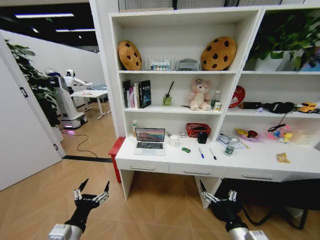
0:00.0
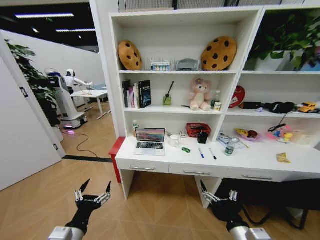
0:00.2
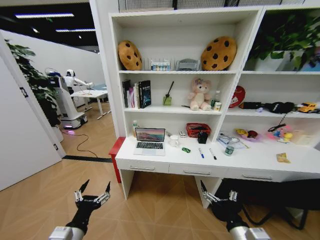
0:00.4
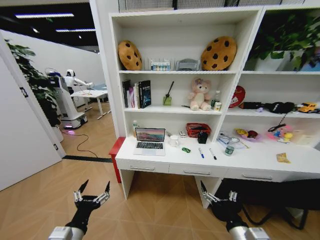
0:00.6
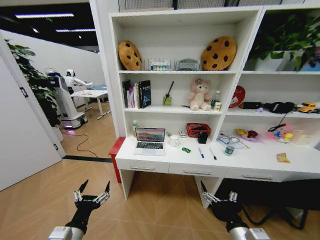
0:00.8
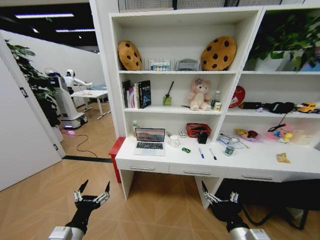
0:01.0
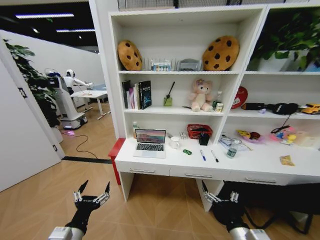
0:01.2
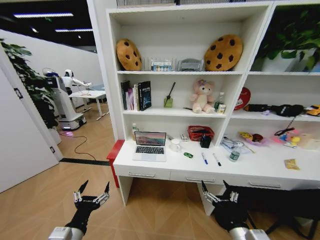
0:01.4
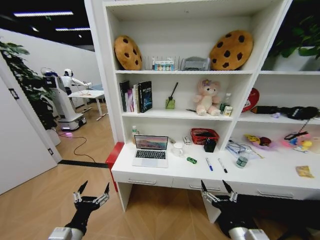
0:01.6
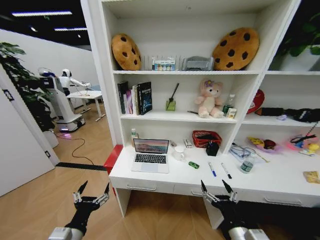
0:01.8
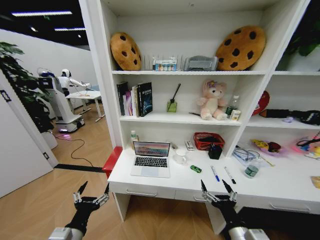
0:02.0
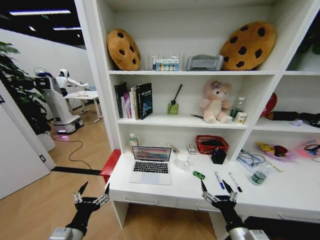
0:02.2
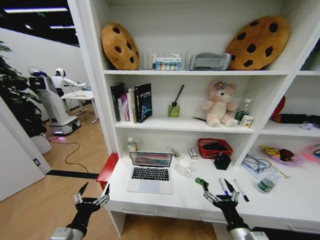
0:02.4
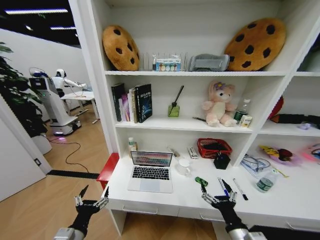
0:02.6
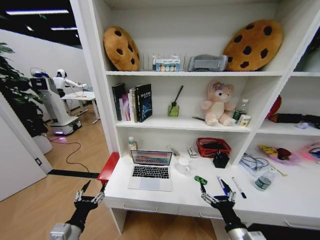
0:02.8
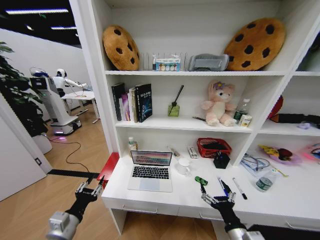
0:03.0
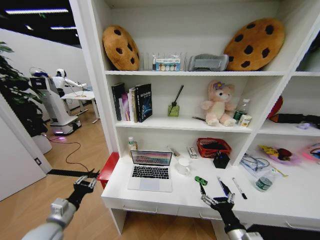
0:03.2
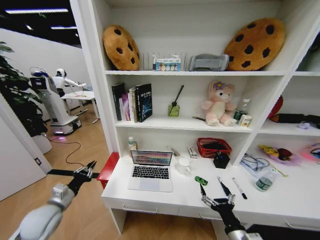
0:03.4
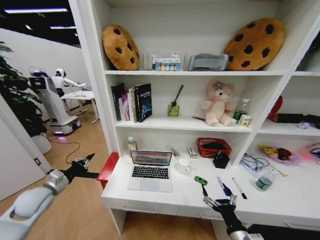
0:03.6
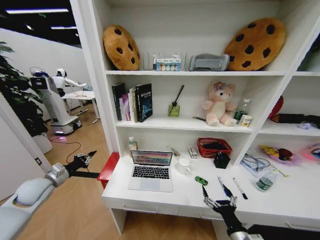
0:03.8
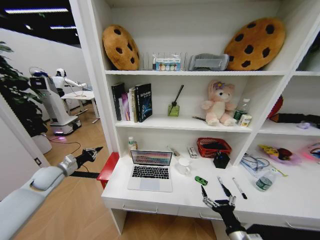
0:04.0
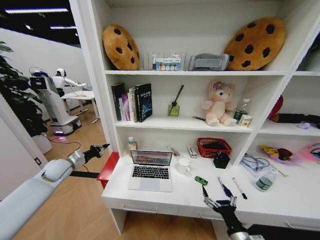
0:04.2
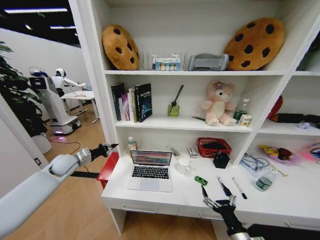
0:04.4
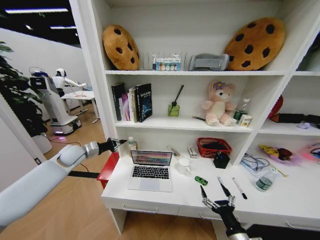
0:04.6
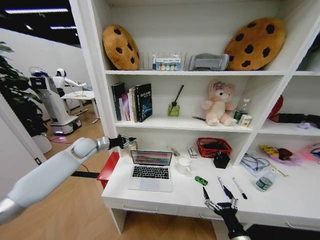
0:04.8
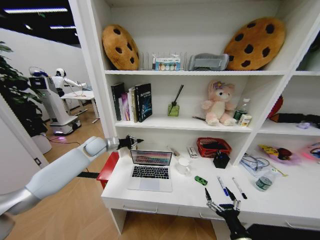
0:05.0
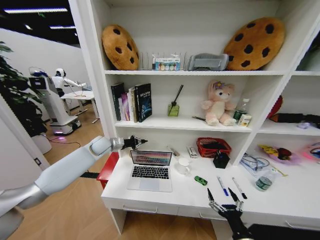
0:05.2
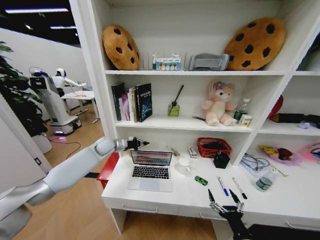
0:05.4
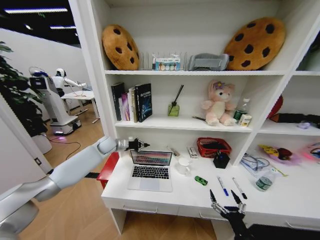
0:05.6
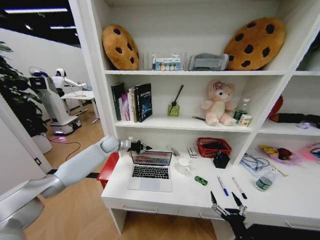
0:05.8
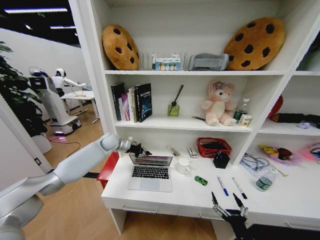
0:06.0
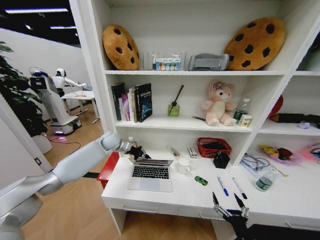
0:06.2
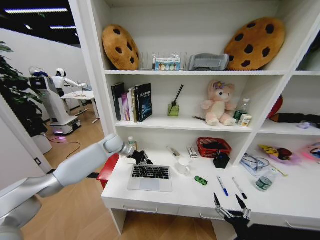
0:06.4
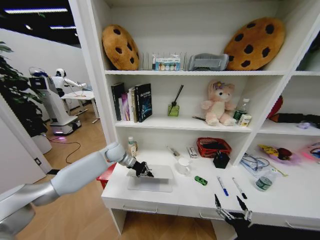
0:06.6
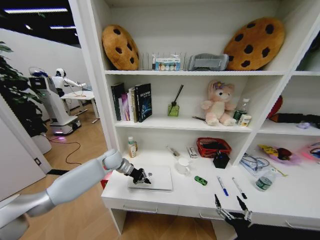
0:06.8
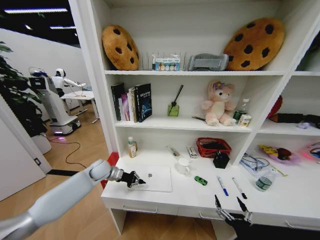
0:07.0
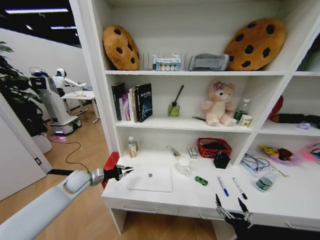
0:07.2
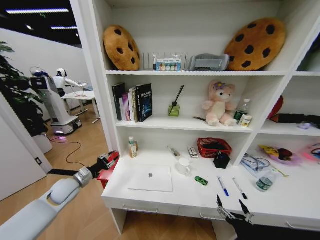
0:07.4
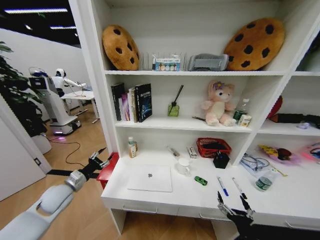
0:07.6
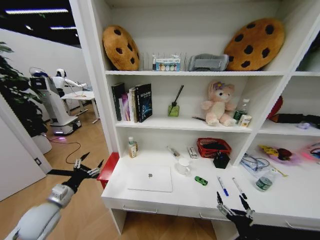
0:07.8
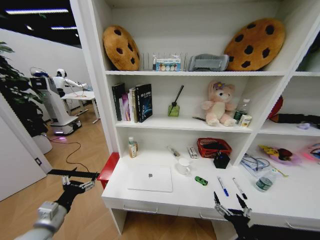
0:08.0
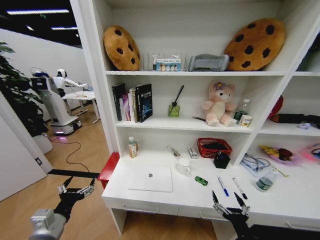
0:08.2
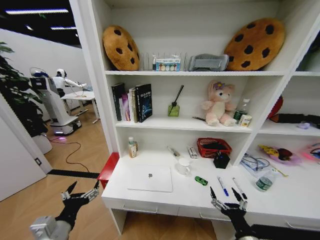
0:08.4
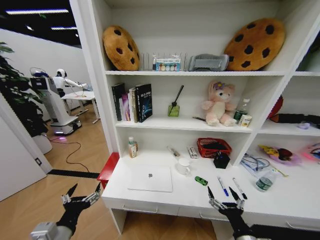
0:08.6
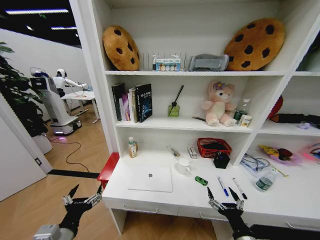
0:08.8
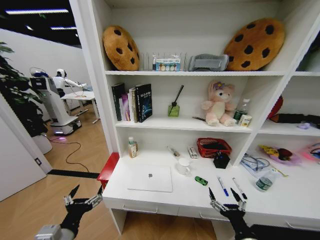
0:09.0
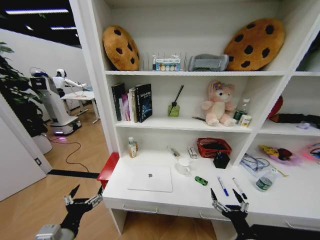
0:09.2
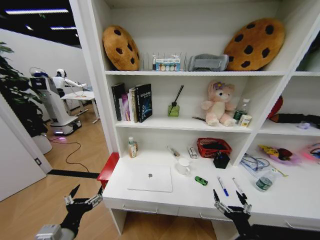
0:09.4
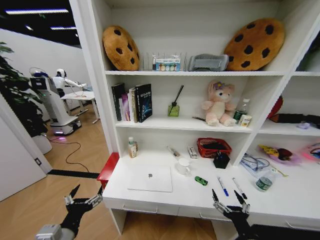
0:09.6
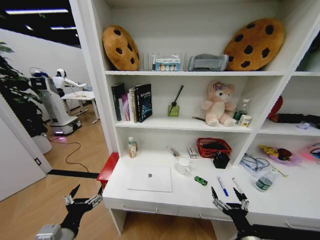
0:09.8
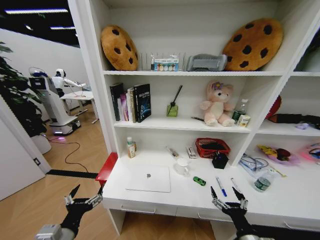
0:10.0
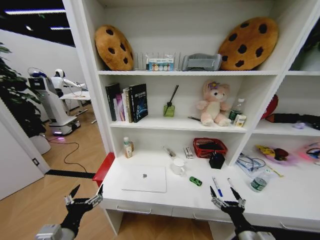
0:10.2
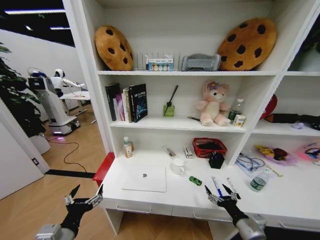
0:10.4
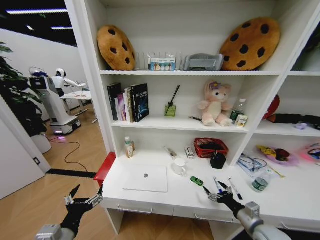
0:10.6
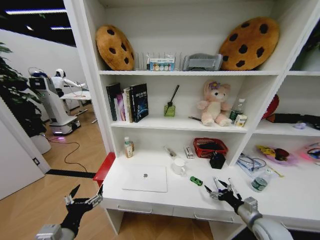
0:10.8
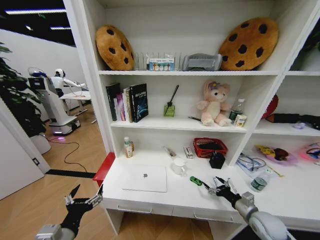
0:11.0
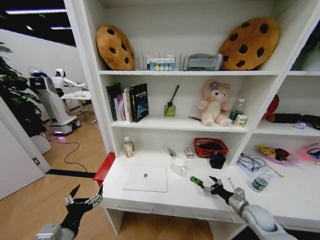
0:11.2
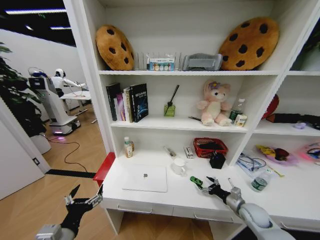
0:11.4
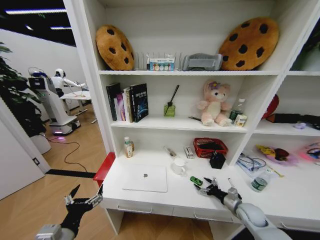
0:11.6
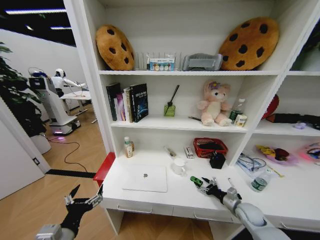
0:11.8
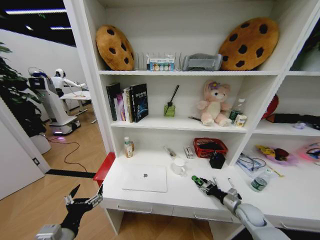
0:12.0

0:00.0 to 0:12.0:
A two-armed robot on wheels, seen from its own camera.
Task of the whole recording: Organize the objects on the table.
0:01.6 to 0:03.0: The left gripper moves approximately 5 cm, and closes its fingers.
0:03.0 to 0:04.4: The left gripper shifts roughly 30 cm forward, and closes its fingers.
0:04.4 to 0:06.0: The left gripper moves to the right and forward, some 20 cm.
0:06.0 to 0:07.6: The left gripper is displaced backward and to the left by about 25 cm, and opens.
0:07.6 to 0:09.0: The left gripper goes roughly 25 cm backward and to the right, and opens up.
0:09.0 to 0:10.4: The right gripper moves some 5 cm.
0:10.4 to 0:12.0: The right gripper heads forward, to the right and downward, covering approximately 20 cm, and closes up.

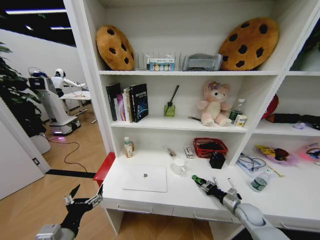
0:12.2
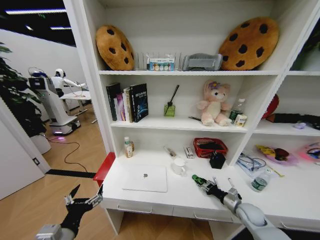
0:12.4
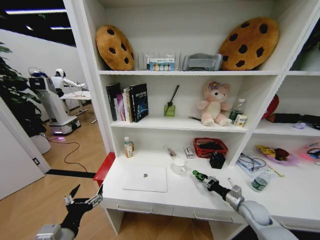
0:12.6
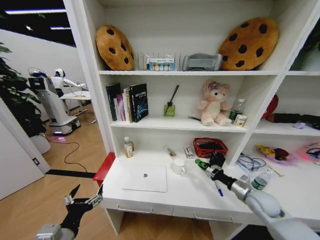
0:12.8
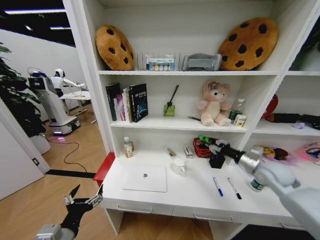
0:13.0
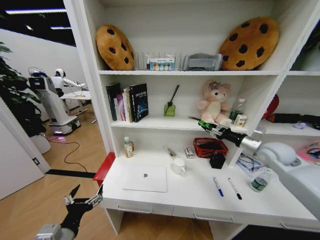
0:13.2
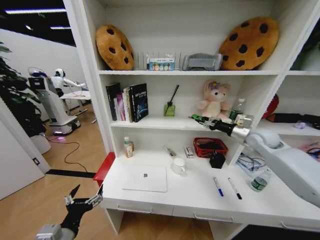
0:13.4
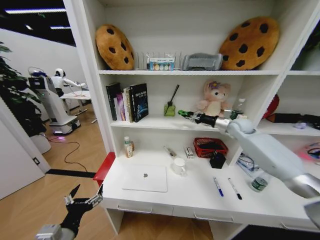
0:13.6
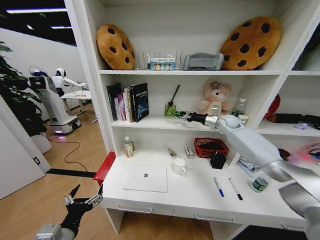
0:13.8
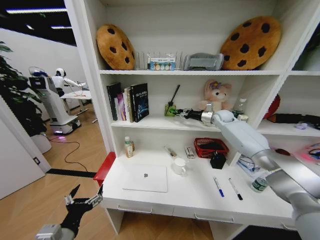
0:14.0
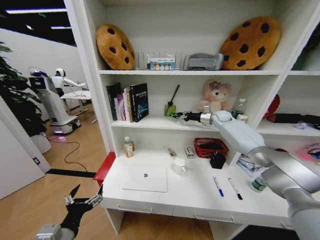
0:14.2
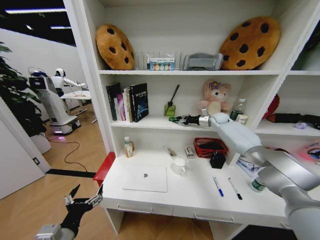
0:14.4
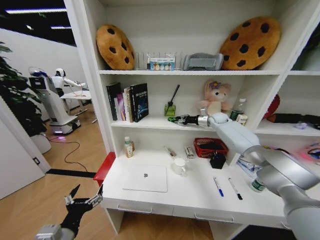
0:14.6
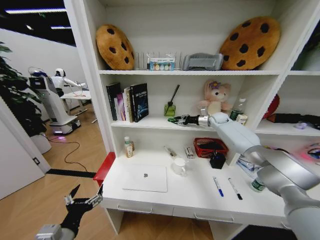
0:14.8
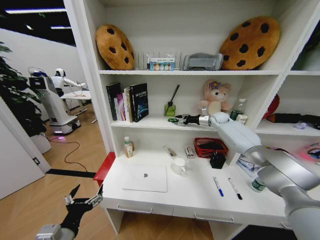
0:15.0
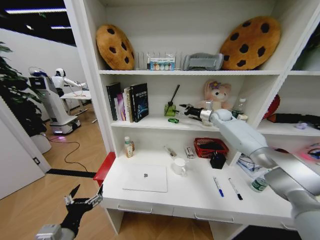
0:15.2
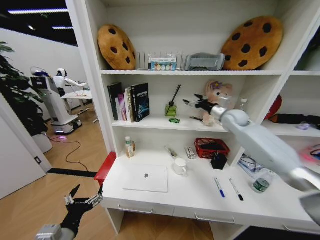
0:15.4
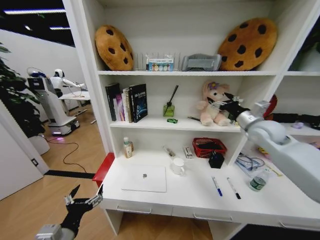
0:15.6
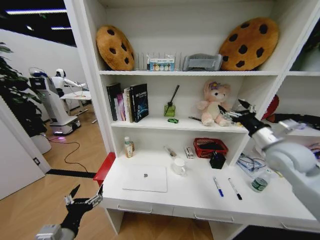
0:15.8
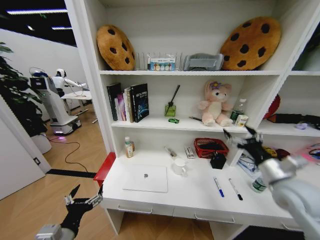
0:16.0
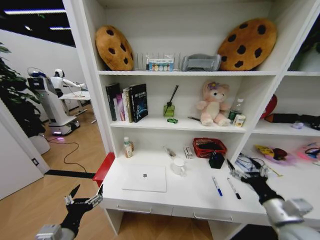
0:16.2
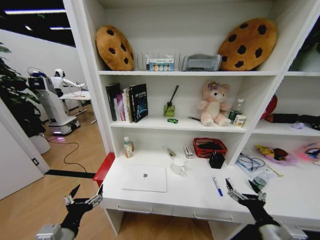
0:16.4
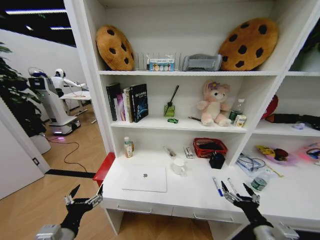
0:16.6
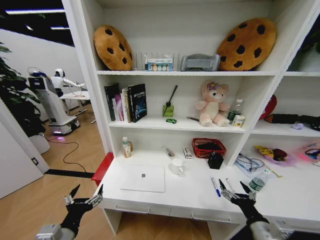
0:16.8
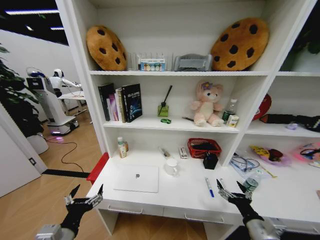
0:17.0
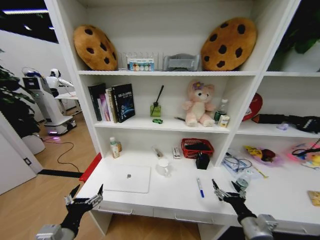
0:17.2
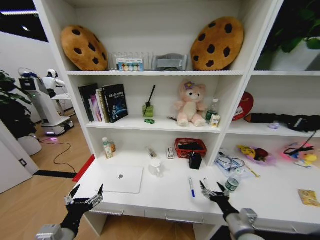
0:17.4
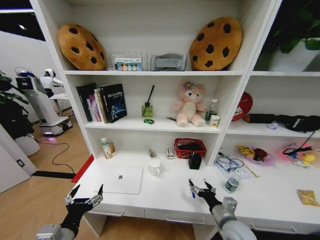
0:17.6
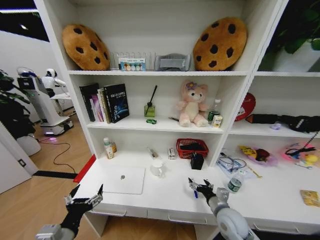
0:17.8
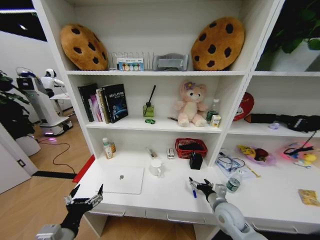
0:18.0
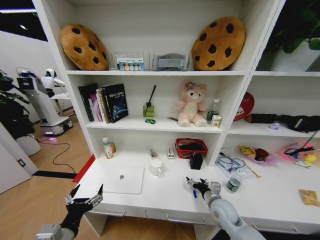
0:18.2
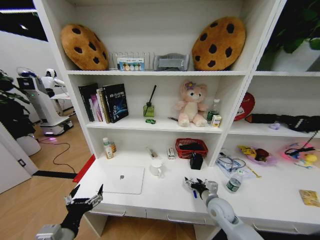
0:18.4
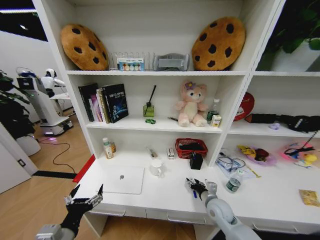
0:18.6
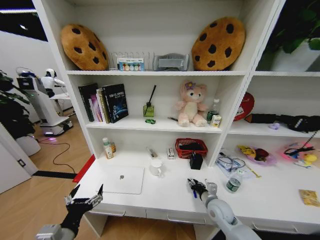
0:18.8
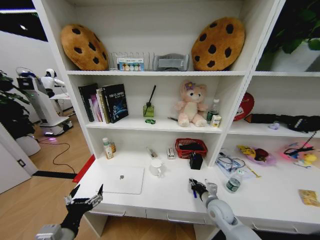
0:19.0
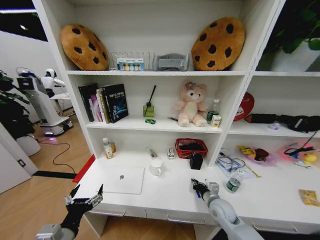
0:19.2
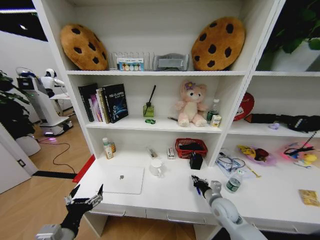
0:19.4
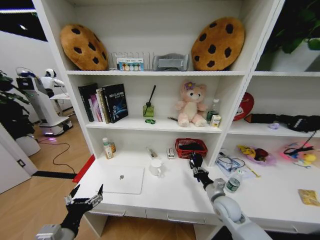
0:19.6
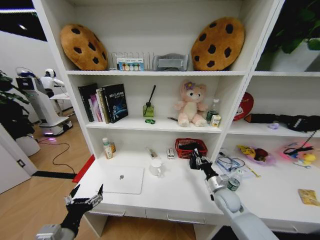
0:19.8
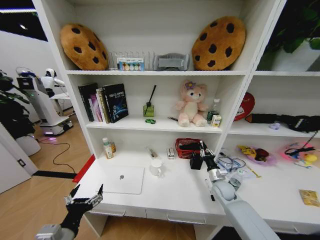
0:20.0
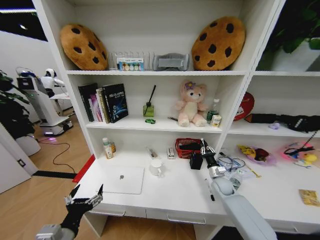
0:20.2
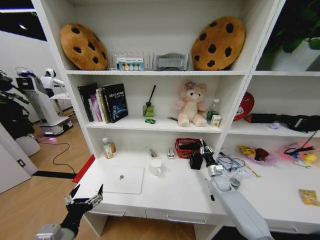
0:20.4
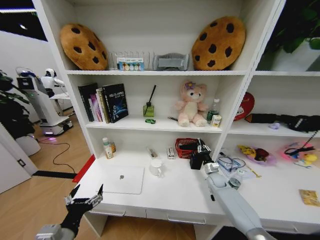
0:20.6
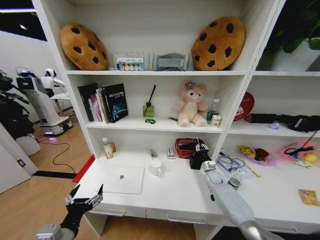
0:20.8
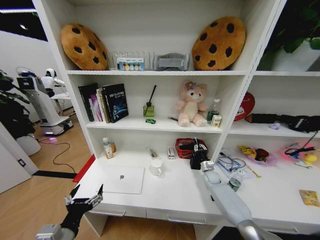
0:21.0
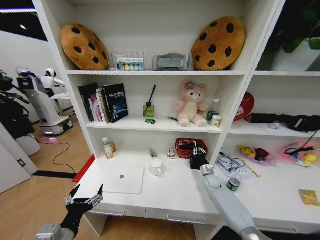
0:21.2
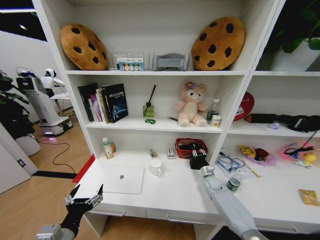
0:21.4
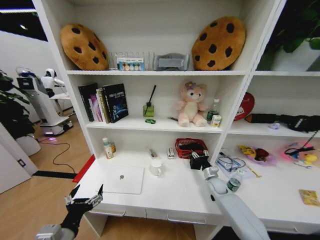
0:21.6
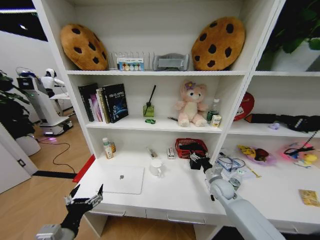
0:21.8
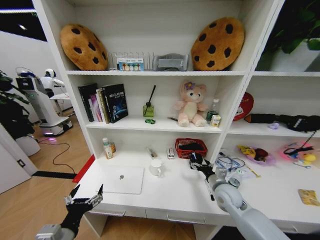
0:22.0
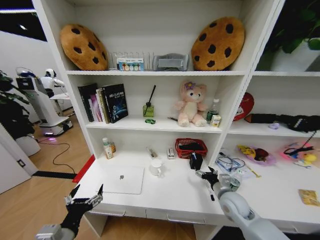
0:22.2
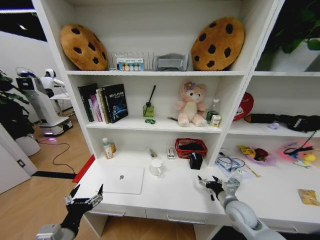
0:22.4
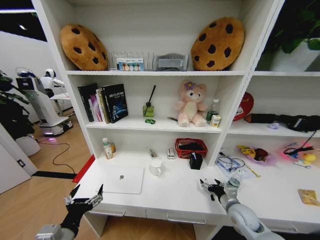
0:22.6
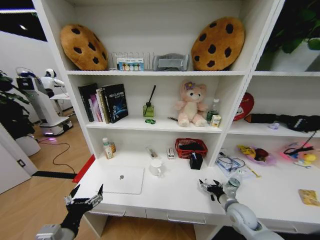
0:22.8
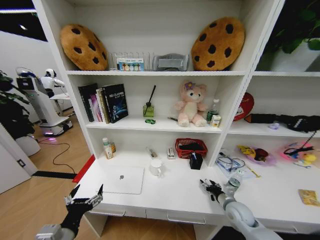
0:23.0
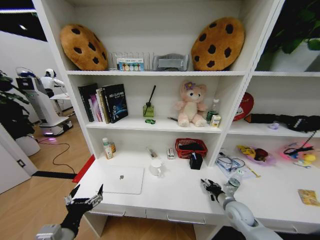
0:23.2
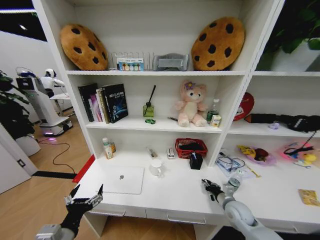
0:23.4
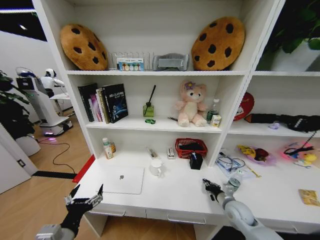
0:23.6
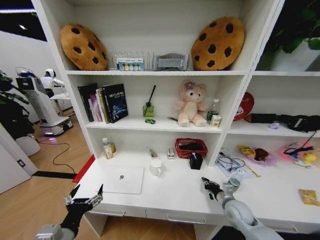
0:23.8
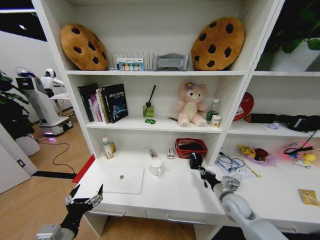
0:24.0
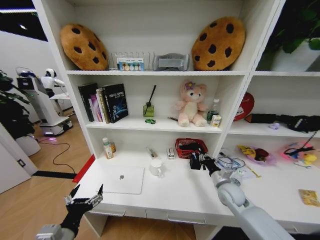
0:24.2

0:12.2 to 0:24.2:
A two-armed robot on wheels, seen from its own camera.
Task of the whole recording: Organize the objects on the table.
0:12.2 to 0:13.8: The right gripper moves upward and forward, some 40 cm.
0:13.8 to 0:15.2: The right gripper moves forward, approximately 5 cm, and opens up.
0:15.2 to 0:16.6: The right gripper heads backward, covering approximately 50 cm.
0:16.6 to 0:18.2: The right gripper moves forward, some 15 cm.
0:18.2 to 0:19.8: The right gripper ends up some 5 cm from where it was, and closes.
0:19.8 to 0:21.2: The right gripper heads forward and downward, covering roughly 15 cm.
0:21.2 to 0:22.6: The right gripper heads backward and upward, covering approximately 20 cm, and opens up.
0:22.6 to 0:24.2: The right gripper heads forward, covering roughly 5 cm, and closes its fingers.
